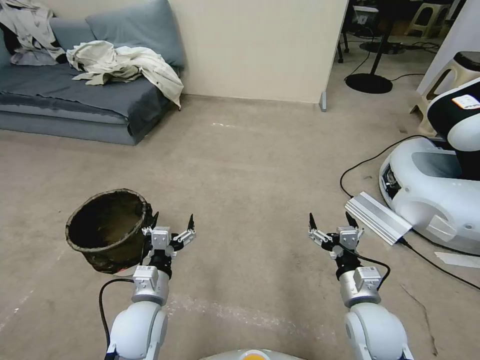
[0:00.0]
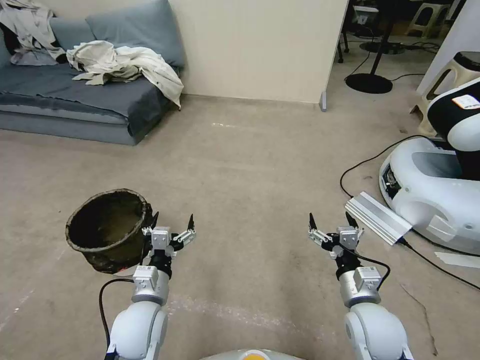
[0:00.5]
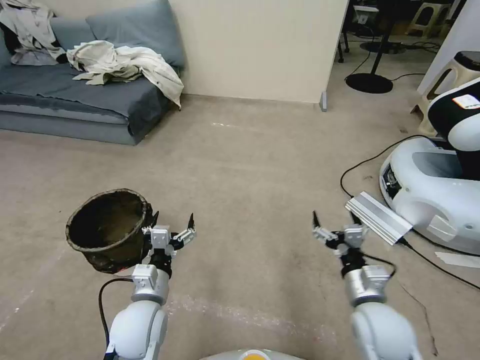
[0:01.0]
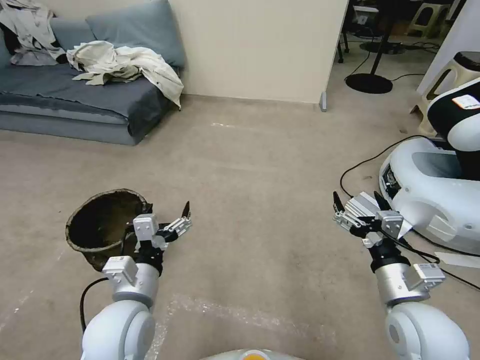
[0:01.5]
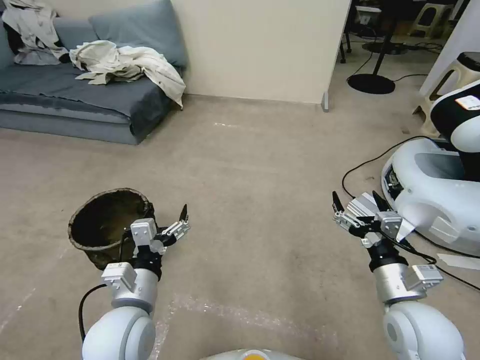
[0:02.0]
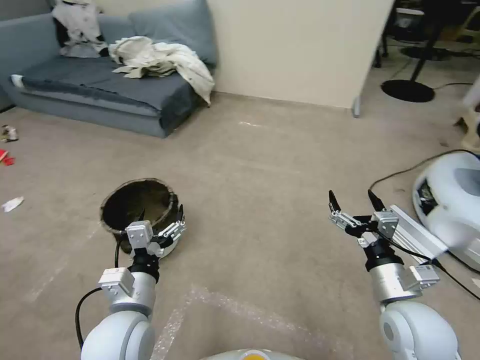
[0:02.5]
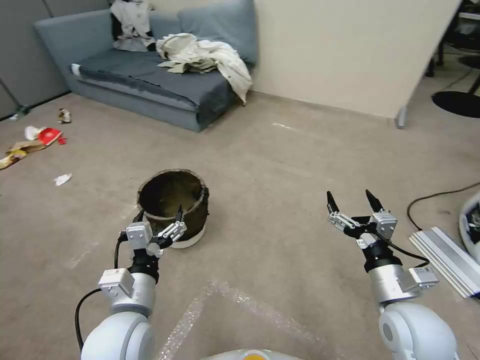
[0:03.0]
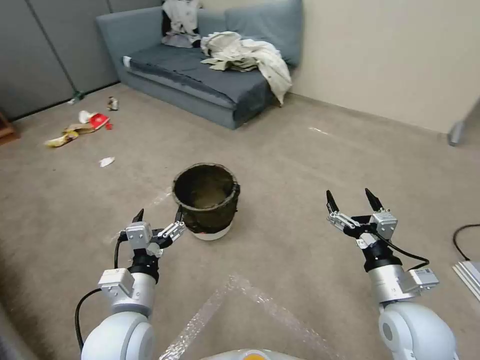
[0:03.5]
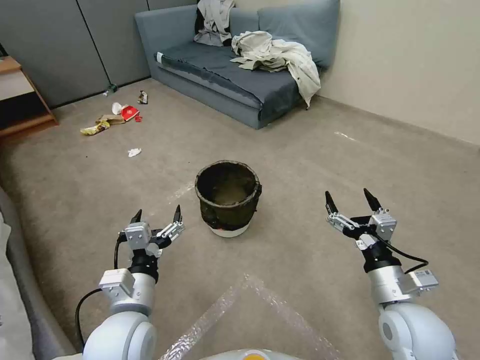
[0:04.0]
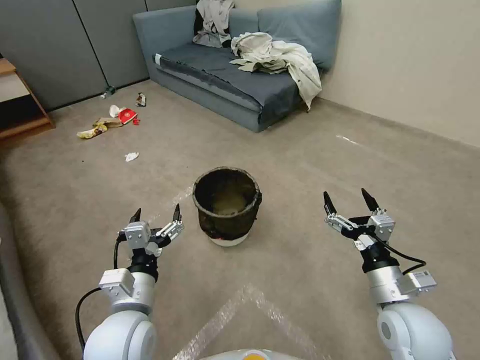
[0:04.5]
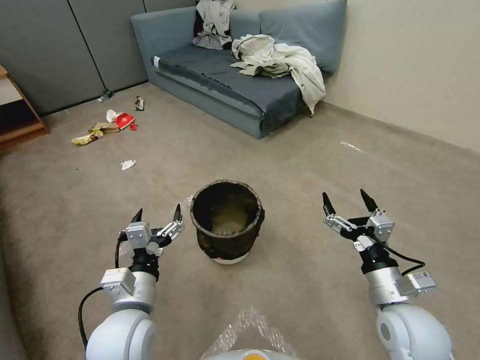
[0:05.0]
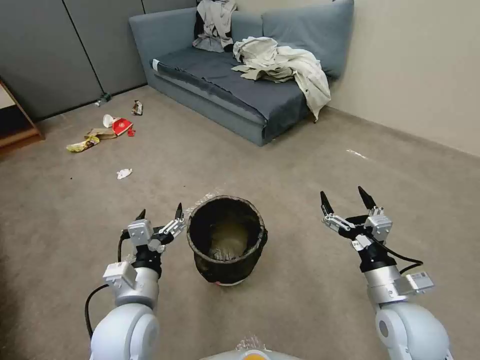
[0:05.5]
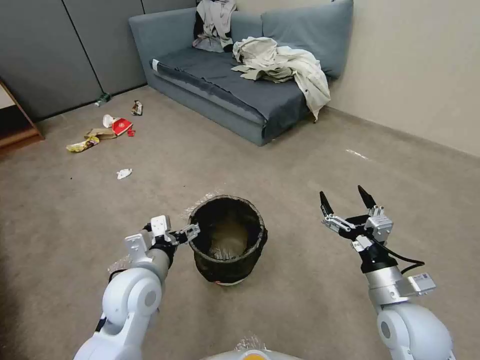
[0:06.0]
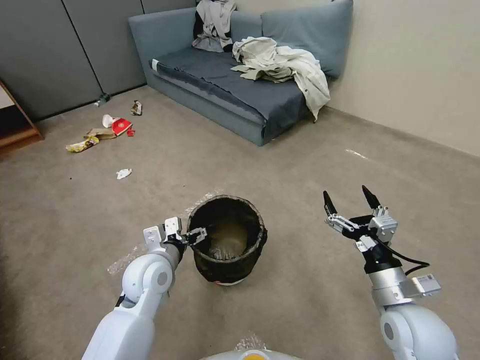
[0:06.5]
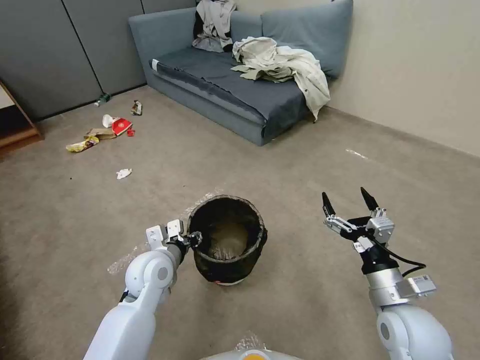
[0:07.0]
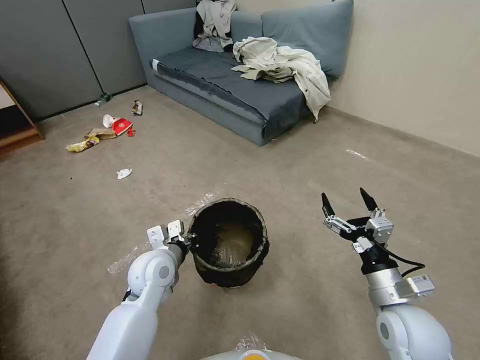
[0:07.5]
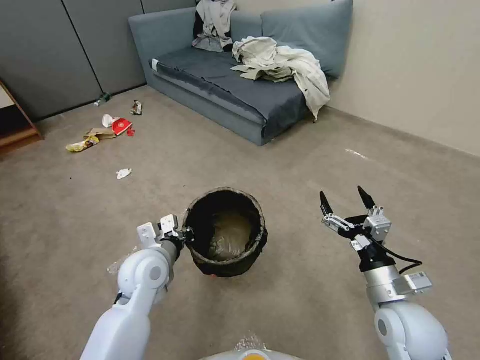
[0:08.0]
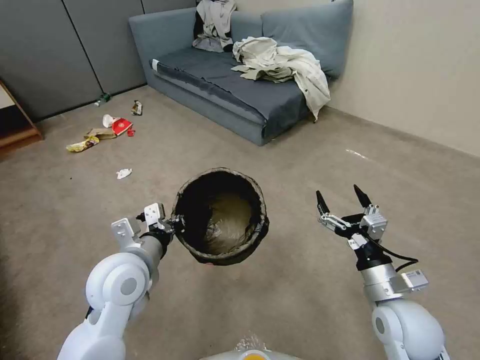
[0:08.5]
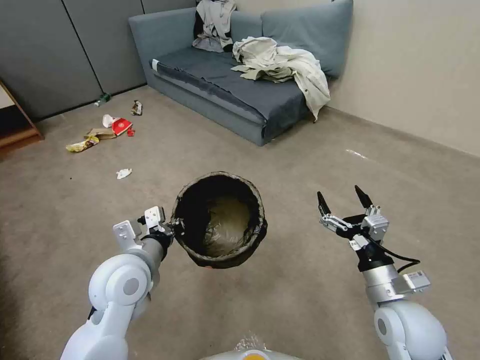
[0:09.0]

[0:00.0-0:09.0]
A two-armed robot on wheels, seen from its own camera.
Task of the whole recording: Pick up the trash can from the floor.
0:04.5 to 0:07.0: The left gripper heads forward, covering about 15 cm, and closes up.
0:07.0 to 0:09.0: The left gripper shifts approximately 10 cm upward, and closes up.
